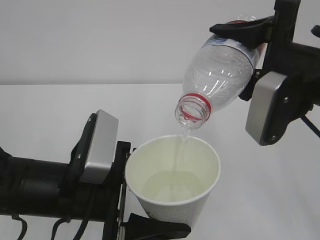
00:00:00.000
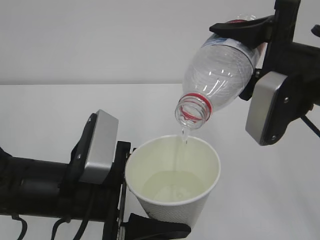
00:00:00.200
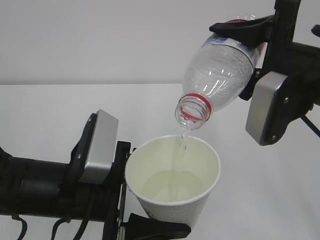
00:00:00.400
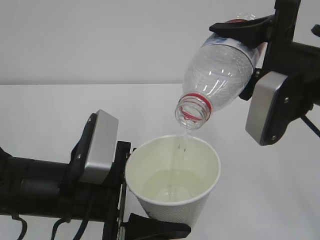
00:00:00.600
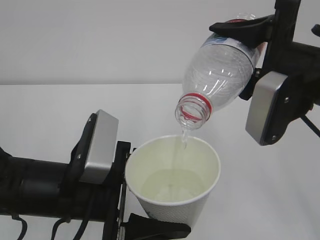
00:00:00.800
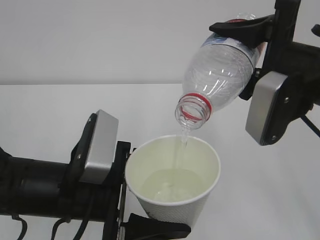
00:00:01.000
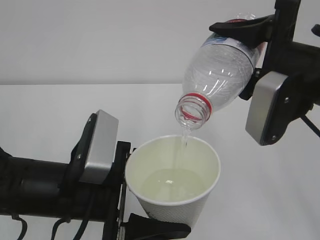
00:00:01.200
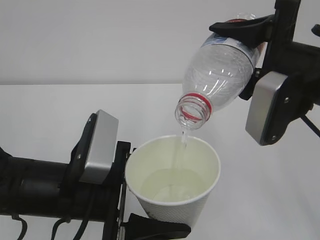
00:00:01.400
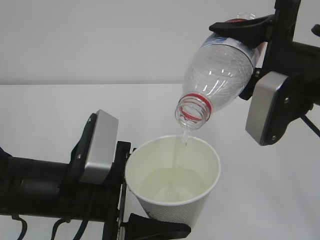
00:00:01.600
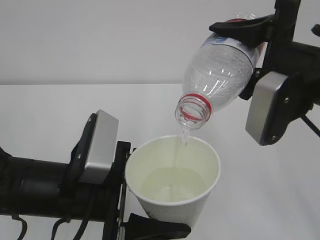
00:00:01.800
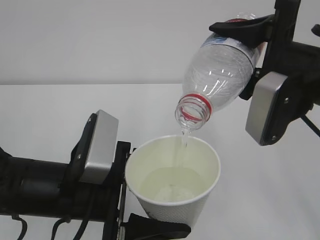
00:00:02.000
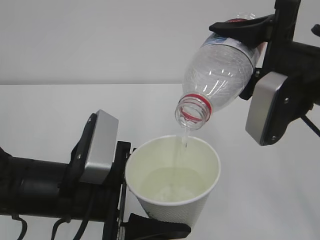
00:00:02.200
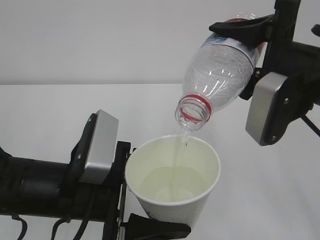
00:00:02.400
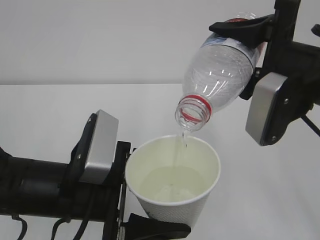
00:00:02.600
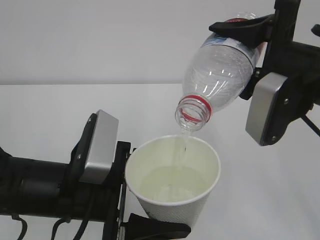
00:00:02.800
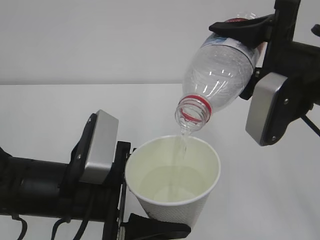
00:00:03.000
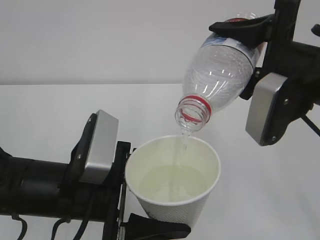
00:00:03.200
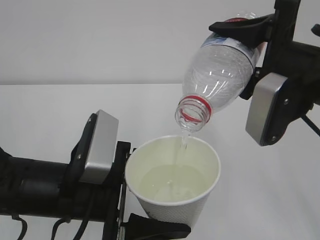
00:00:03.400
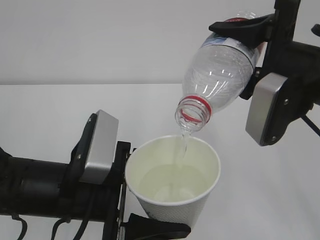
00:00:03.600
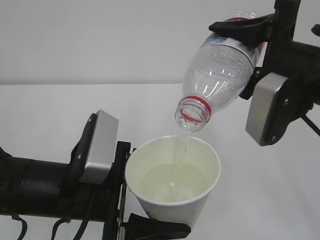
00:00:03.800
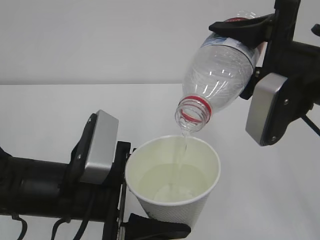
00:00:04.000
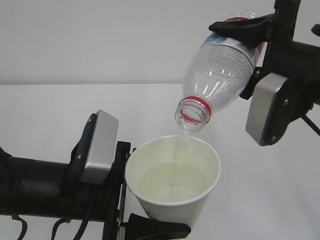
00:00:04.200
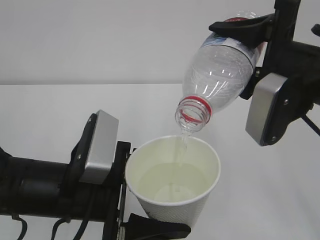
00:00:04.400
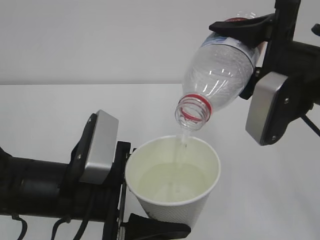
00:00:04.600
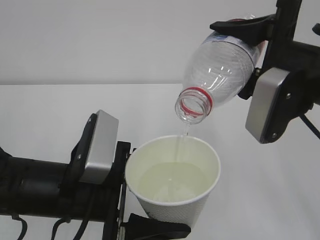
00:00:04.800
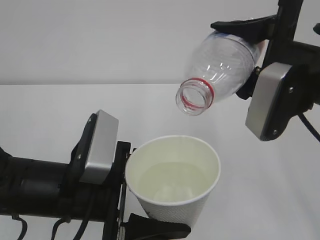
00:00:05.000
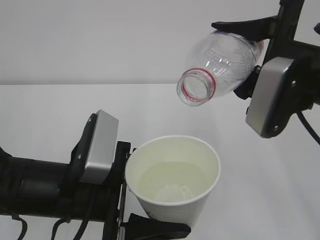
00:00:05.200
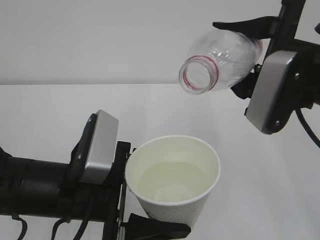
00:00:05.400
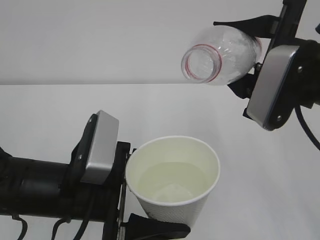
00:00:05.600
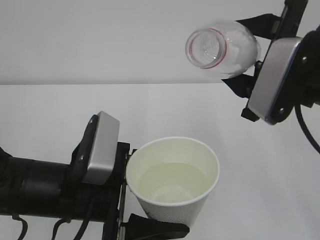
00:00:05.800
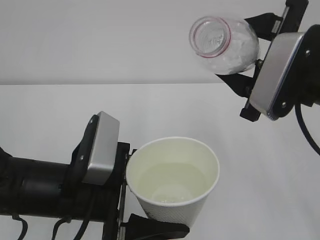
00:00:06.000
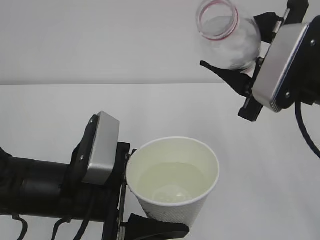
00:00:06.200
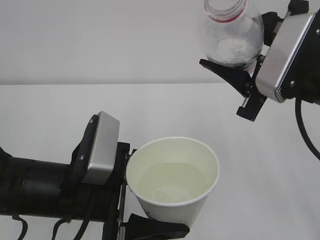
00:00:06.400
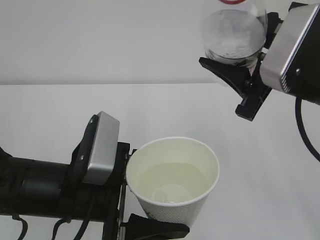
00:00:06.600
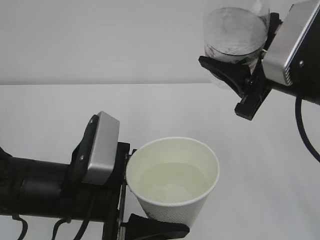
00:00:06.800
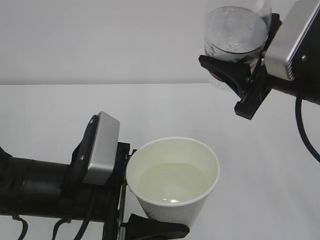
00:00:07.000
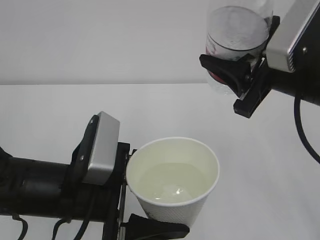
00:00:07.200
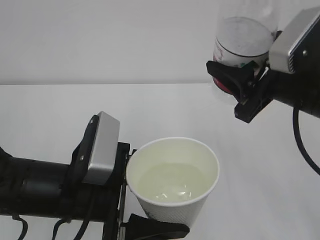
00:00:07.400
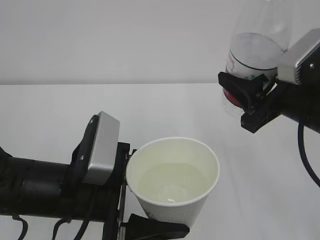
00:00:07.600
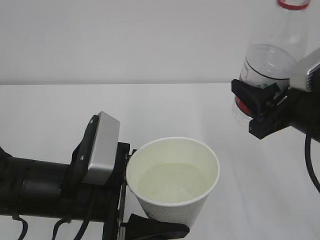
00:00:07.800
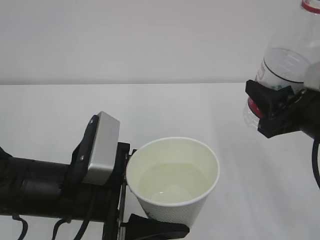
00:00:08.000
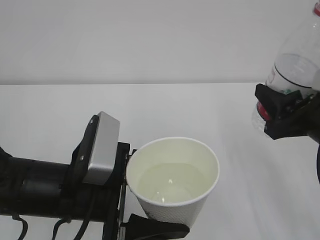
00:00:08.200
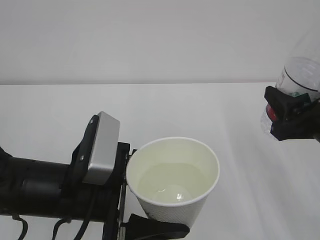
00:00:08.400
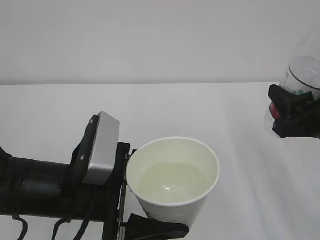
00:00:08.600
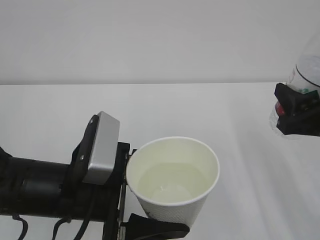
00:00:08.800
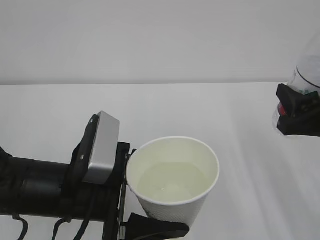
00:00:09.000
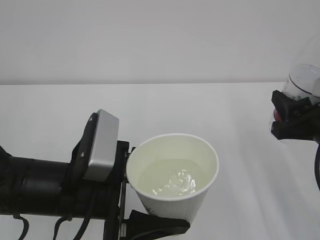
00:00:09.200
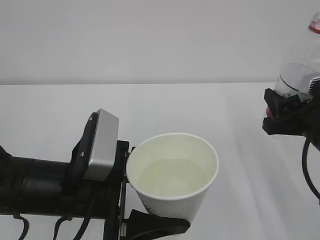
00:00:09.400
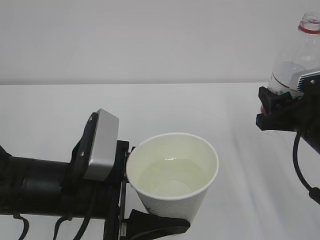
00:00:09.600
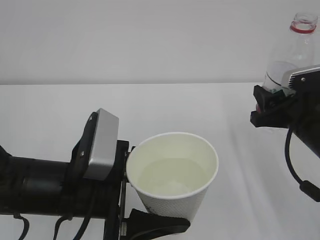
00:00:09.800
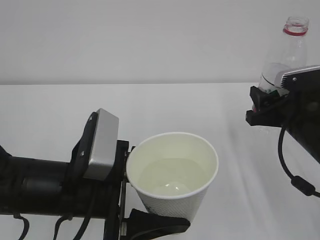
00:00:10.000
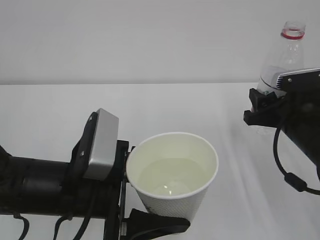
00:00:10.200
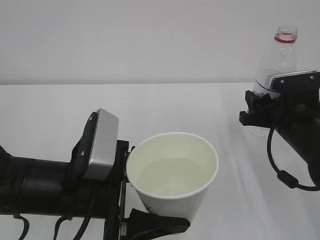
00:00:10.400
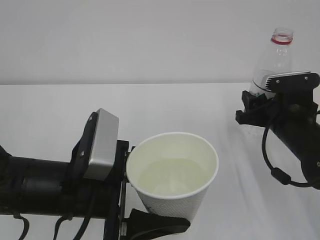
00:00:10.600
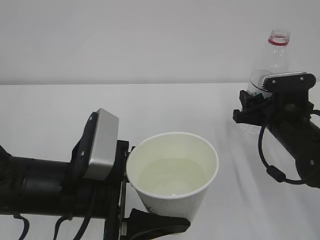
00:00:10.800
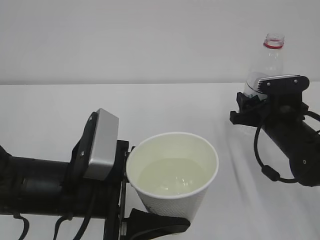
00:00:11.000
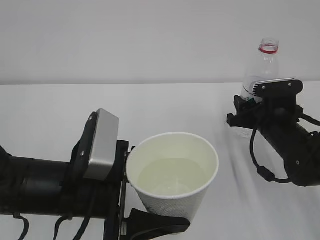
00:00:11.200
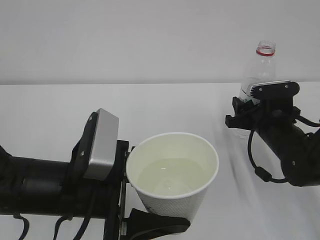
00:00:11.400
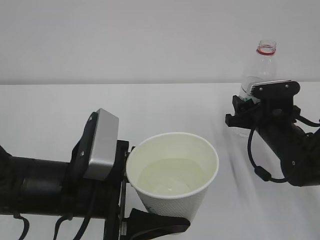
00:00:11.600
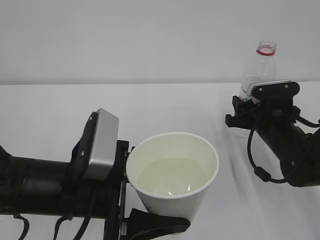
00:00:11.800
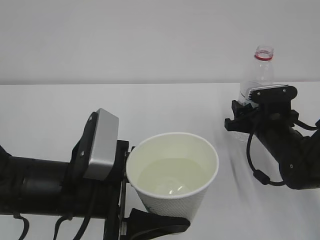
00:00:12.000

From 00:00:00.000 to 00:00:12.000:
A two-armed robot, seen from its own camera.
From 00:00:00.000 to 00:00:04.400: The two grippers keep their place.
From 00:00:07.600 to 00:00:09.000: The right gripper moves about 5 cm.
From 00:00:09.000 to 00:00:10.400: The right gripper heads forward and downward, covering approximately 10 cm.
From 00:00:10.400 to 00:00:12.000: The right gripper changes place by roughly 5 cm.

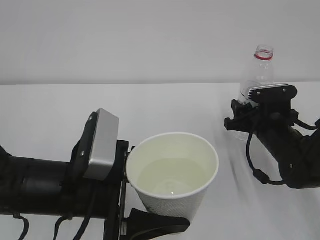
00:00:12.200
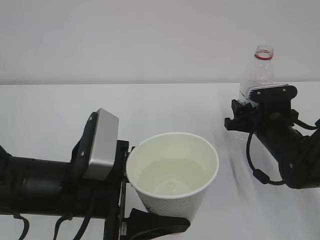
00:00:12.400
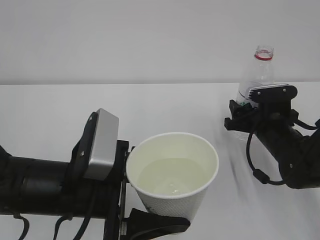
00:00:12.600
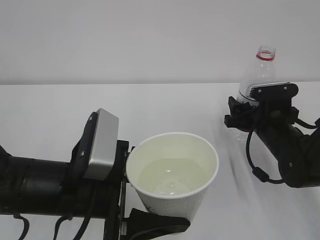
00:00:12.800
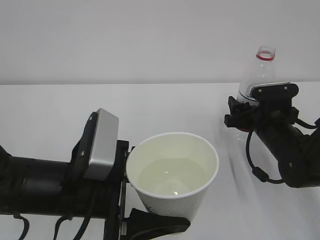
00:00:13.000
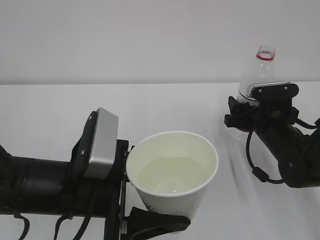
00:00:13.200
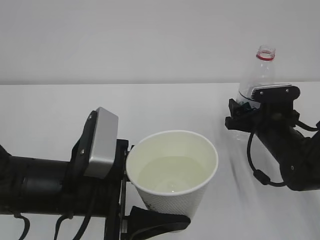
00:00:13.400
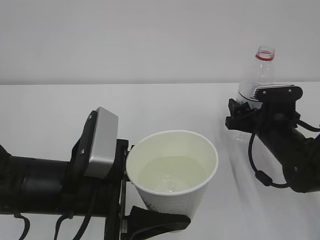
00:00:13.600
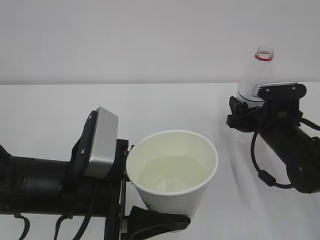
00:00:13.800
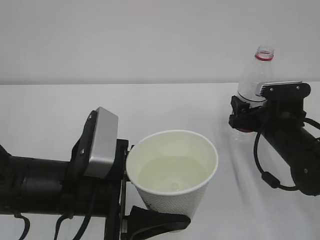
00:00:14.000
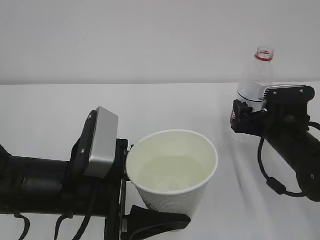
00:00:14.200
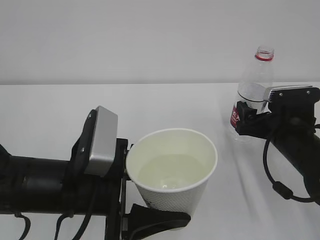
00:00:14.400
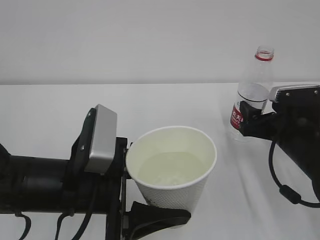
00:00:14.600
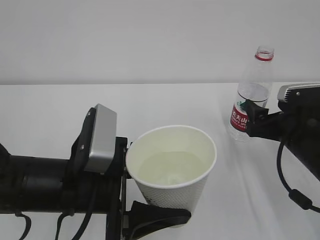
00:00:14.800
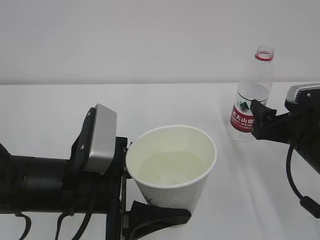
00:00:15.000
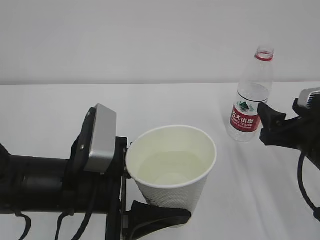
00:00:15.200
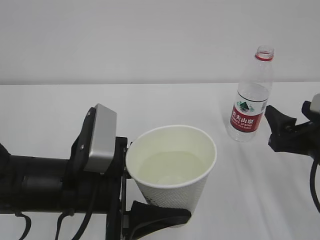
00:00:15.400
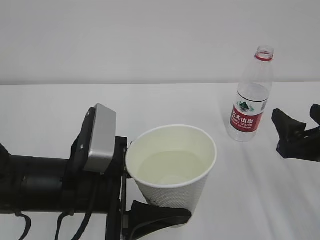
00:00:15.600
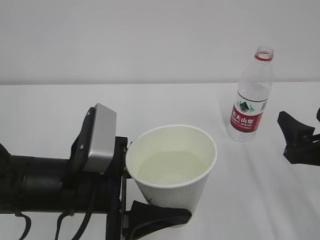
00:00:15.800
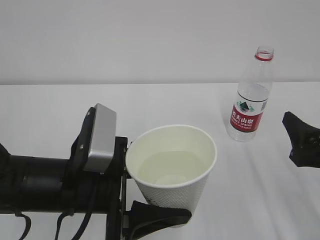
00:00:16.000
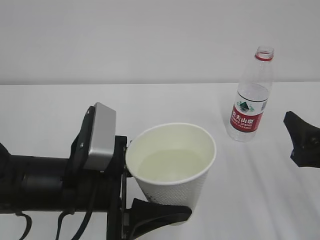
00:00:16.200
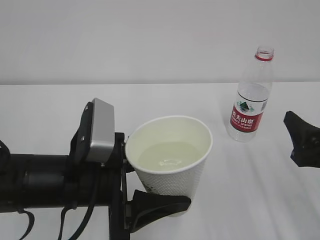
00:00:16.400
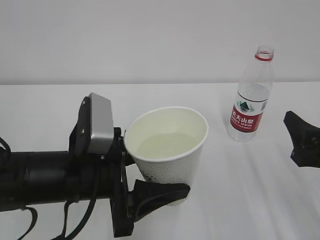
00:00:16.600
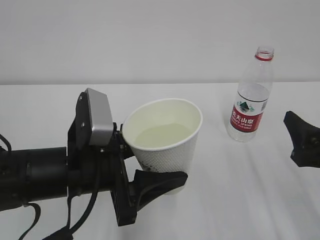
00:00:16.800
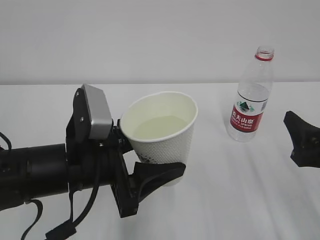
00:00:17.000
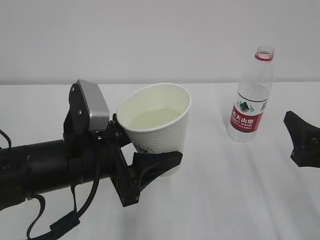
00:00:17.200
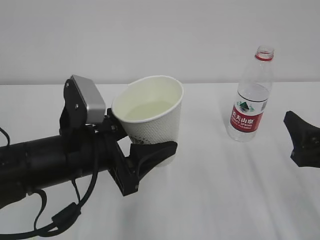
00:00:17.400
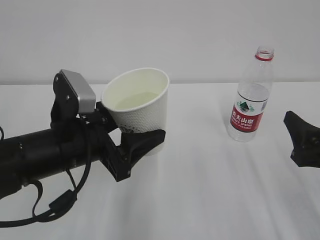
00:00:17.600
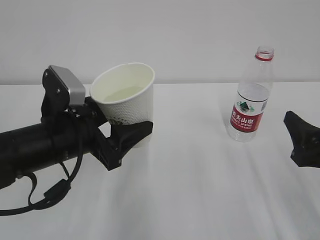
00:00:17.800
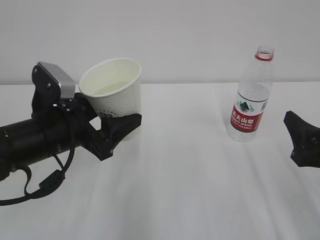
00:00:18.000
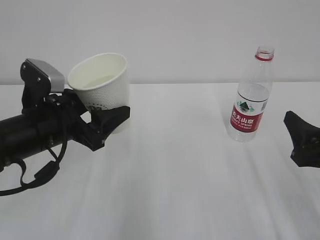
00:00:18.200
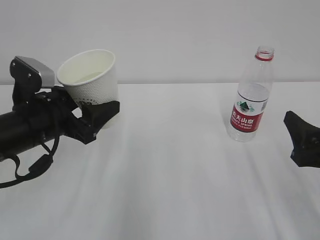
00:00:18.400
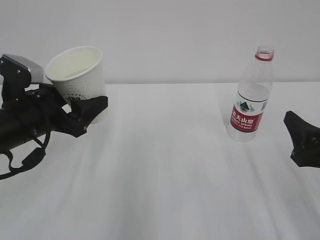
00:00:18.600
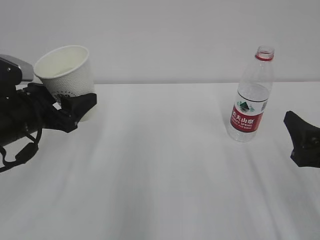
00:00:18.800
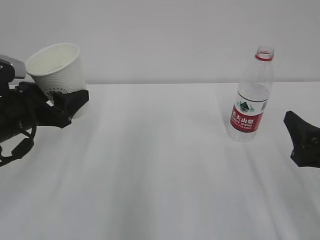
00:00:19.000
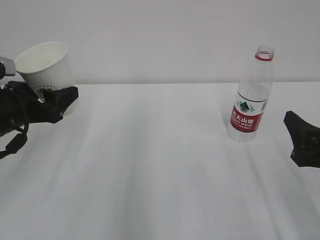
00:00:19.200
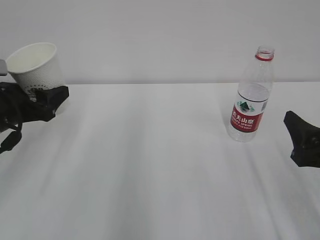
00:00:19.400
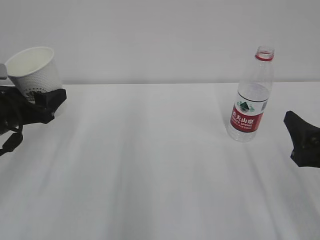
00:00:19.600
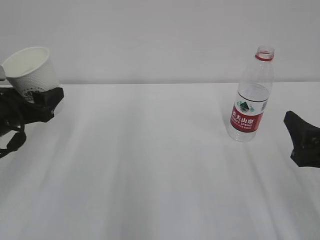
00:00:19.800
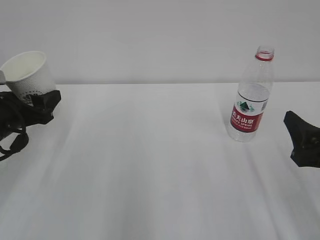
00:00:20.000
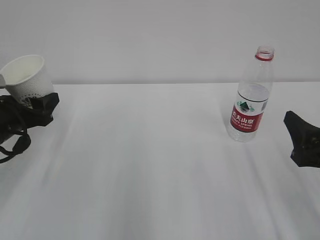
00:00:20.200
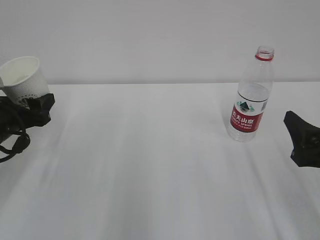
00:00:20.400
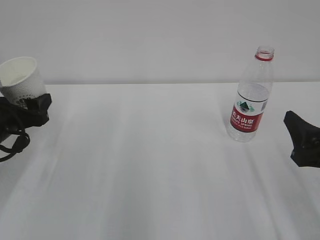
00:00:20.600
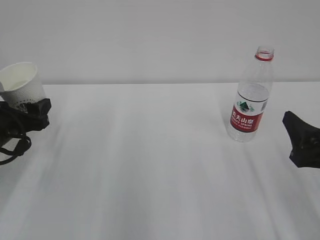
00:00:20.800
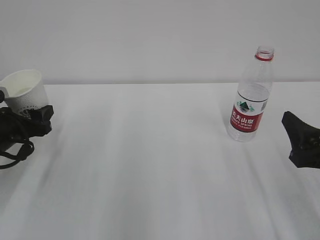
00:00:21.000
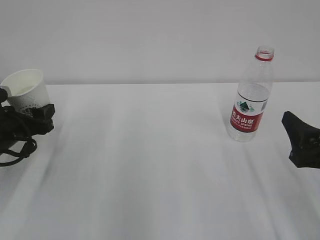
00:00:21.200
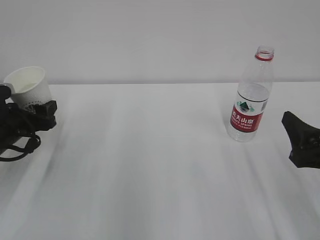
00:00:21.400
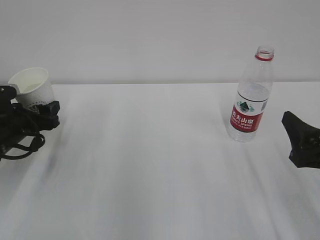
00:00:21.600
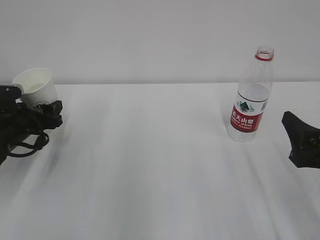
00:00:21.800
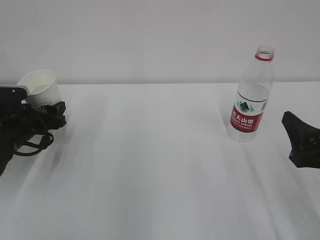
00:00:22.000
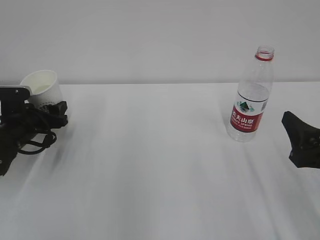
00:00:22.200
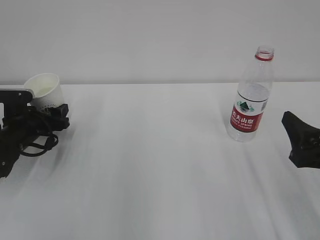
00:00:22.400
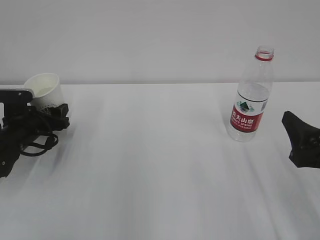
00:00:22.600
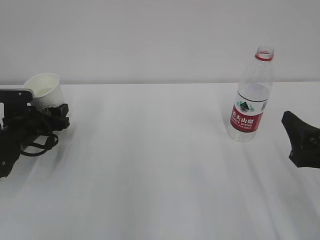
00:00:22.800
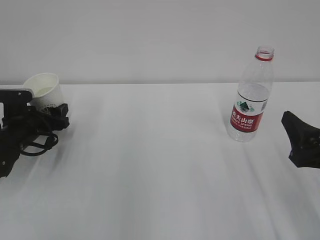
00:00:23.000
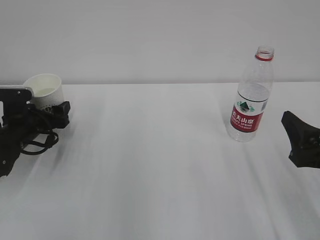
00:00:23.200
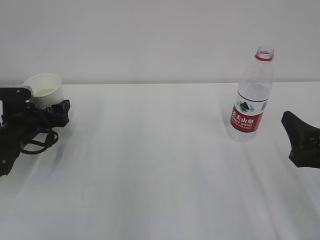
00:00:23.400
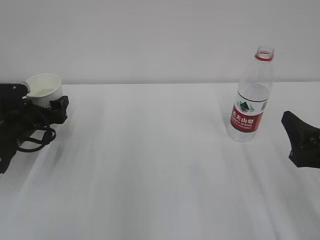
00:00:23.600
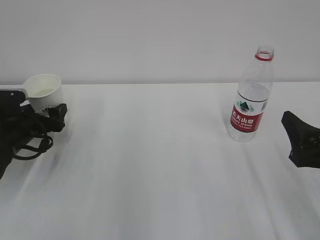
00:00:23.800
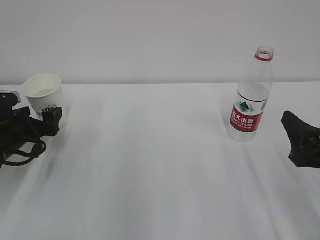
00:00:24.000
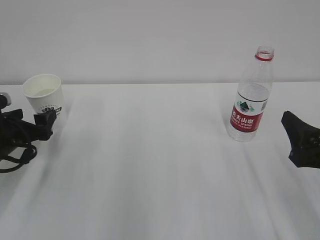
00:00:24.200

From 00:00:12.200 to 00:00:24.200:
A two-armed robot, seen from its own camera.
From 00:00:12.200 to 00:00:13.800: The right gripper opens up.
From 00:00:13.800 to 00:00:15.200: The right gripper shifts roughly 10 cm backward.
From 00:00:15.200 to 00:00:16.600: The right gripper moves backward, some 5 cm.
From 00:00:16.600 to 00:00:18.200: The left gripper heads forward and to the left, covering about 10 cm.
From 00:00:18.200 to 00:00:19.800: The left gripper heads to the left, covering some 10 cm.
From 00:00:19.800 to 00:00:21.200: The left gripper changes place by some 5 cm.
From 00:00:21.200 to 00:00:22.600: The left gripper goes approximately 5 cm forward.
From 00:00:22.600 to 00:00:24.200: The left gripper is displaced backward by roughly 5 cm, and opens its fingers.
